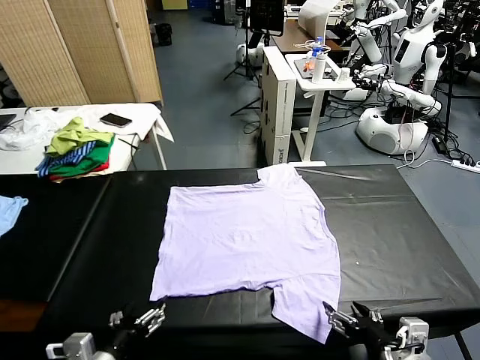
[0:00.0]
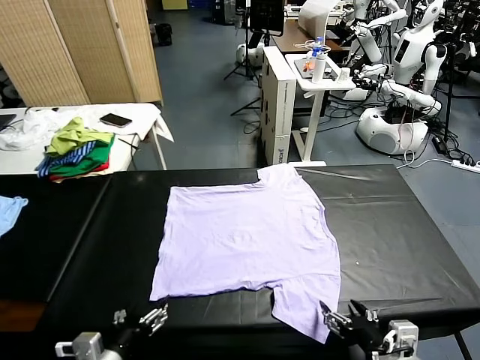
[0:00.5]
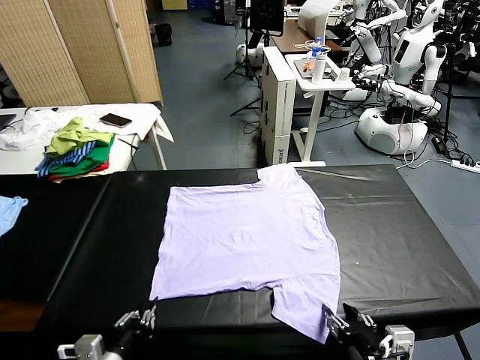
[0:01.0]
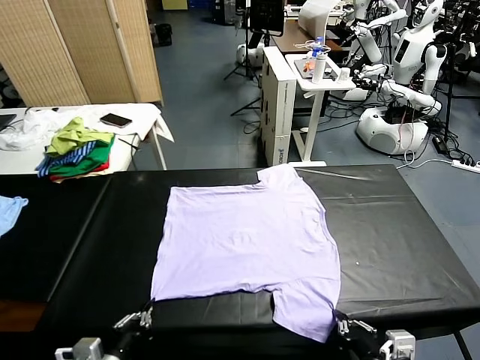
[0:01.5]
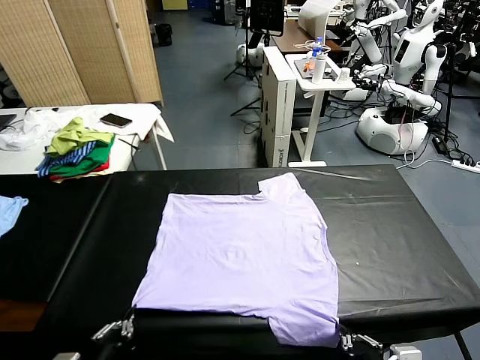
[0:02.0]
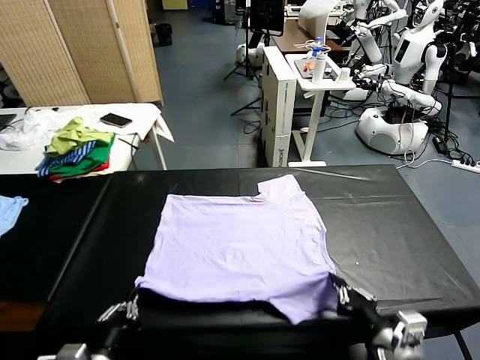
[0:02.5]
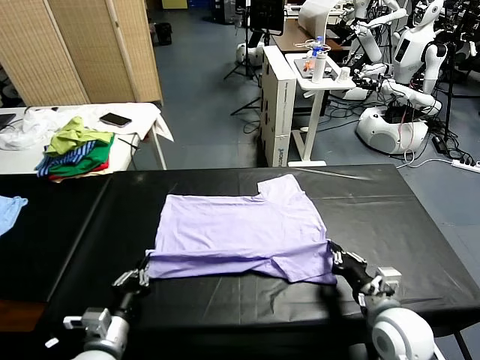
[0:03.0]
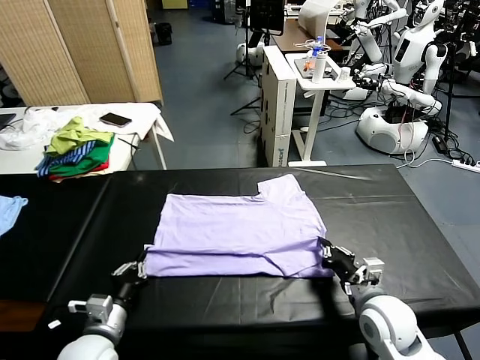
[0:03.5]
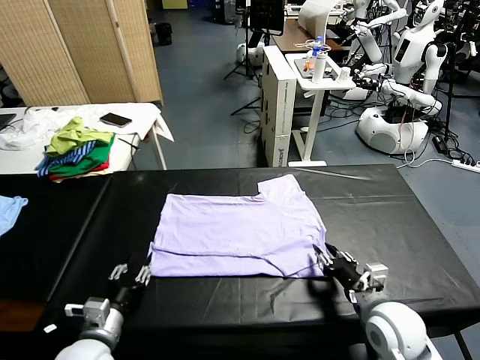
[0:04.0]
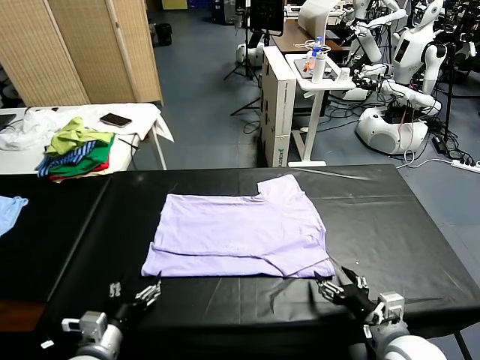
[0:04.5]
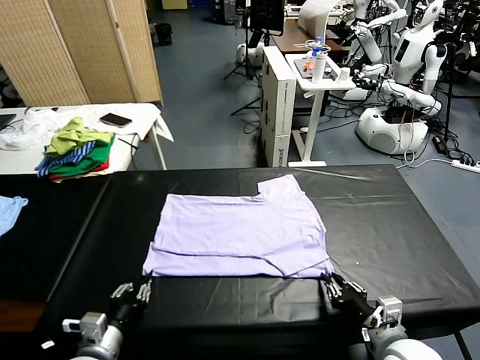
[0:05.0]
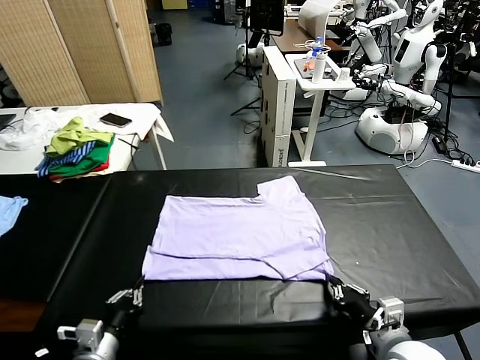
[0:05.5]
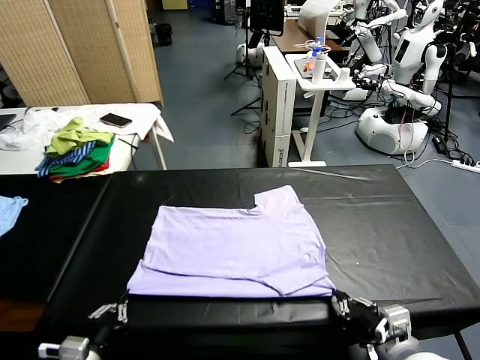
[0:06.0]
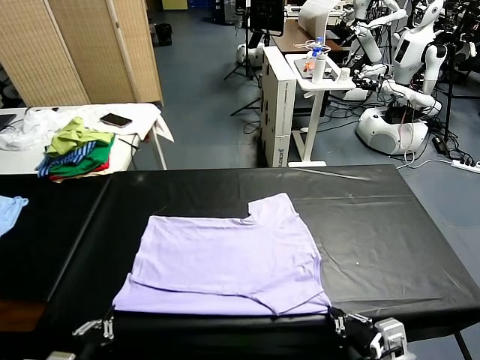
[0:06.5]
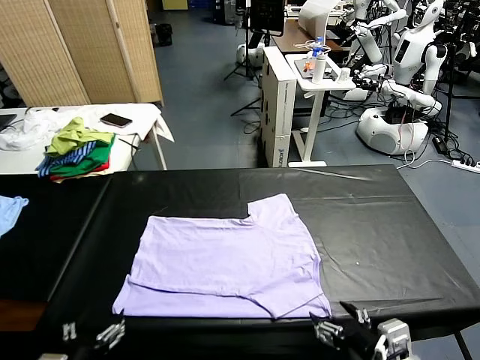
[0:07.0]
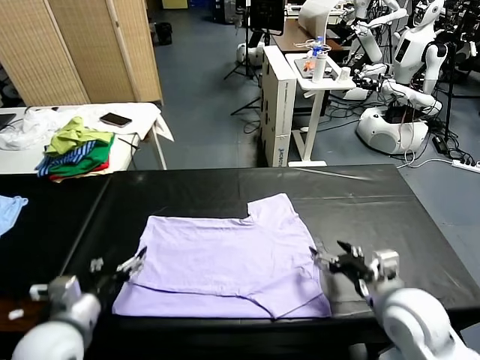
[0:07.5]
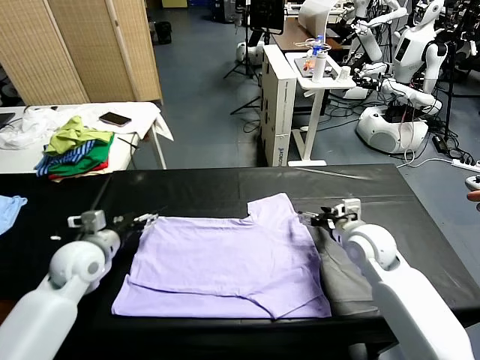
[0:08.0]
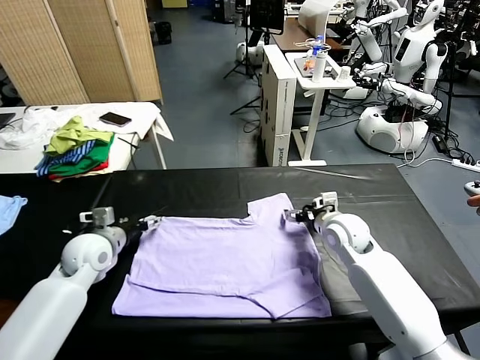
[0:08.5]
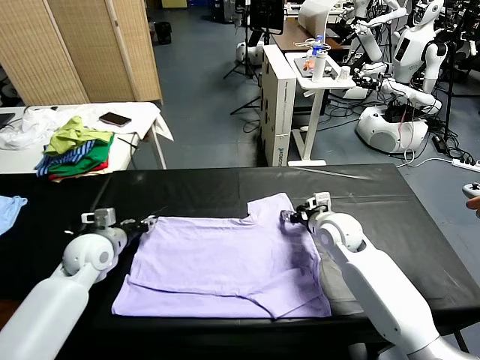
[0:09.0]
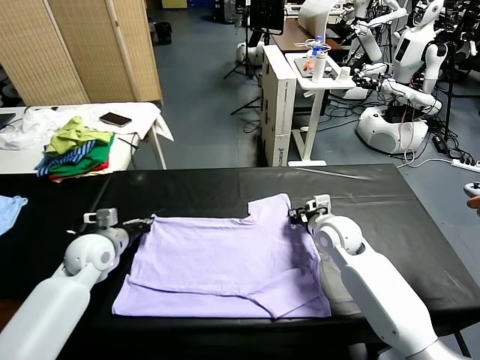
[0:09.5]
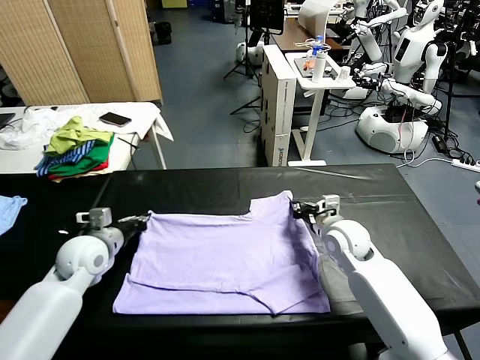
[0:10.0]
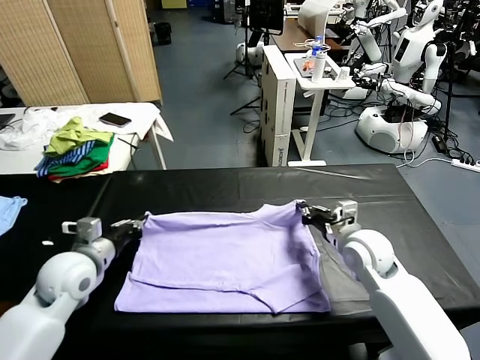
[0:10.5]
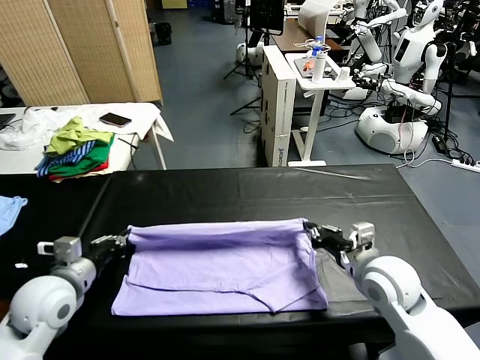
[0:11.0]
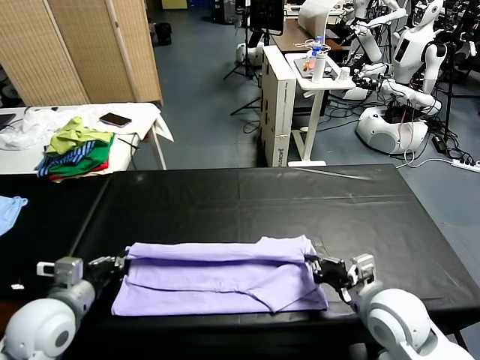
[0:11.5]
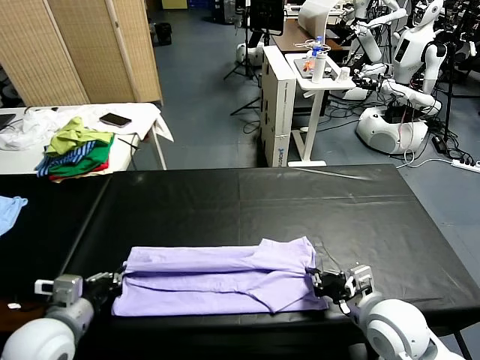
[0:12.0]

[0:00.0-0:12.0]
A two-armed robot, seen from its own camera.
Task of the whole recording: fold and organize the clothes.
Step, 0:00.0 to 0:01.5: use both grippers simultaneously to clamp the lower edge of the clothing fabric.
Step, 0:02.0 to 0:04.0: use both grippers to drag the lower edge of the fabric forward and fold it over the upper edge.
Step, 0:04.5 to 0:06.5: Drag the clothes downward with both gripper.
Step, 0:07.0 to 0:09.5: use both grippers simultaneously to clamp the upper edge of the clothing fabric.
0:02.0 to 0:04.0: The left gripper heads forward and downward, covering approximately 10 cm, and opens up. The right gripper moves forward, approximately 10 cm, and opens.
0:04.0 to 0:06.0: Both grippers move backward, approximately 5 cm. The right gripper closes its fingers; the left gripper closes up.
0:06.0 to 0:08.0: Both grippers move forward, about 30 cm. The right gripper opens. Meanwhile the left gripper opens its fingers.
0:08.0 to 0:10.0: The left gripper closes its fingers. The right gripper closes.
0:10.0 to 0:12.0: The grippers both shift backward by approximately 15 cm.

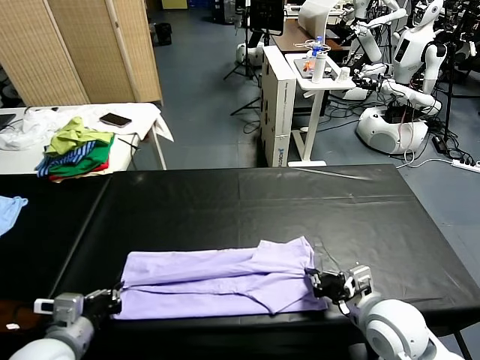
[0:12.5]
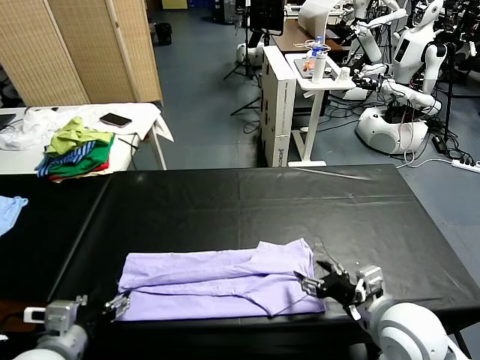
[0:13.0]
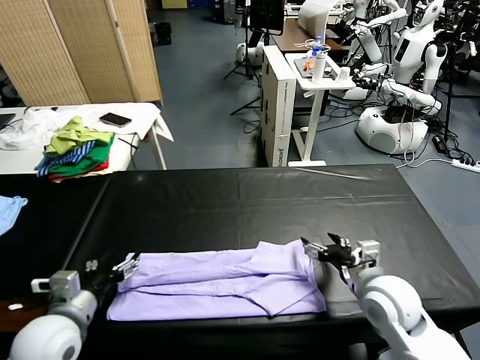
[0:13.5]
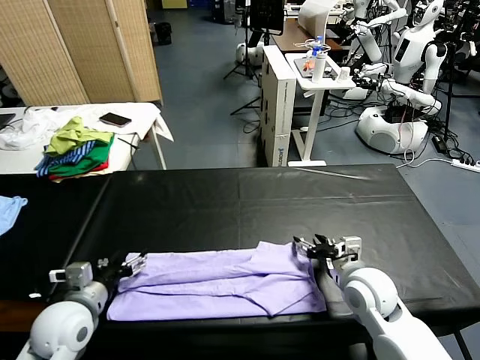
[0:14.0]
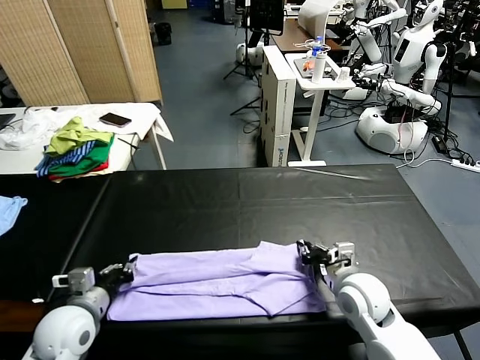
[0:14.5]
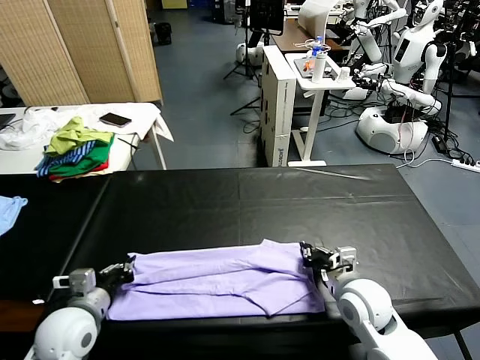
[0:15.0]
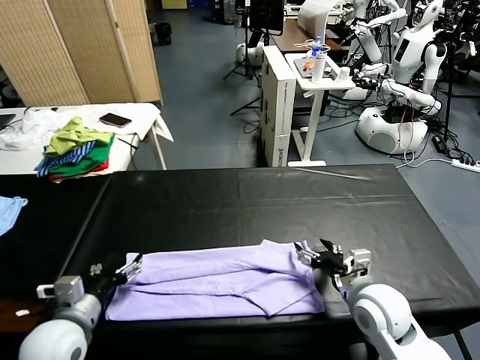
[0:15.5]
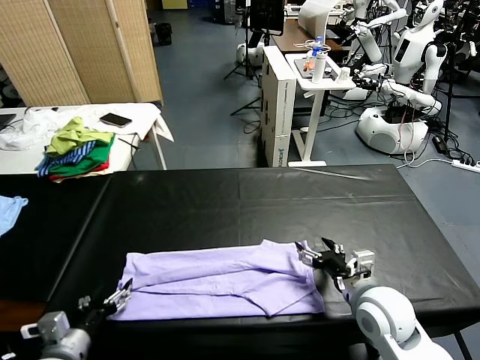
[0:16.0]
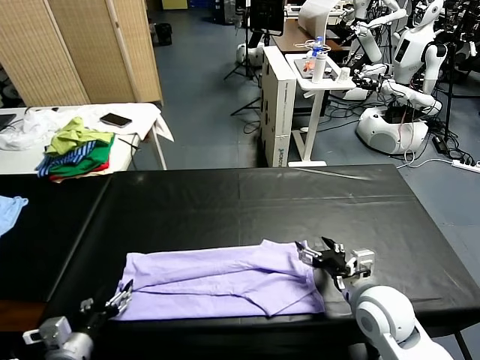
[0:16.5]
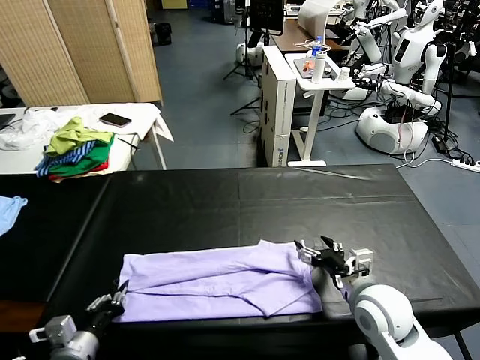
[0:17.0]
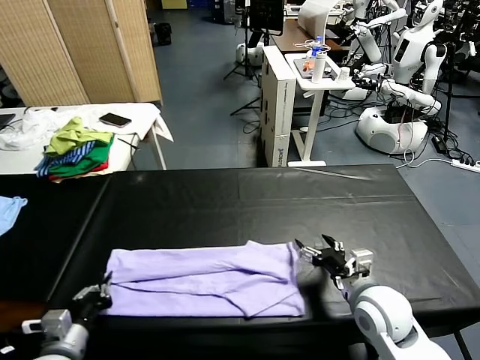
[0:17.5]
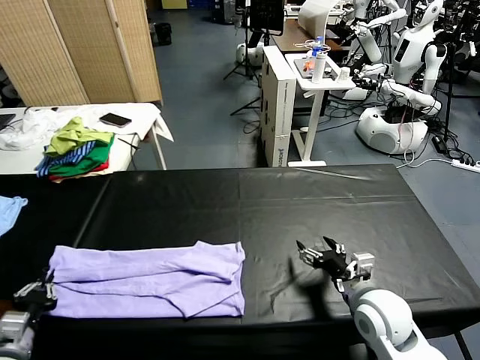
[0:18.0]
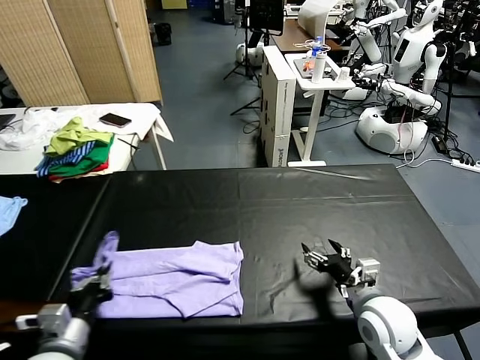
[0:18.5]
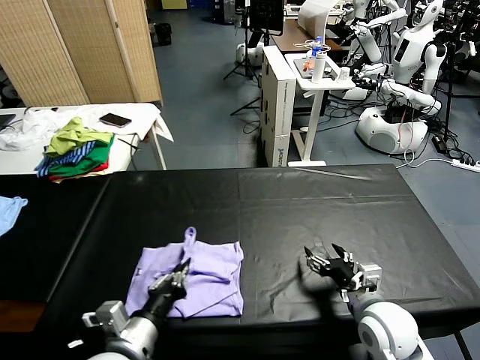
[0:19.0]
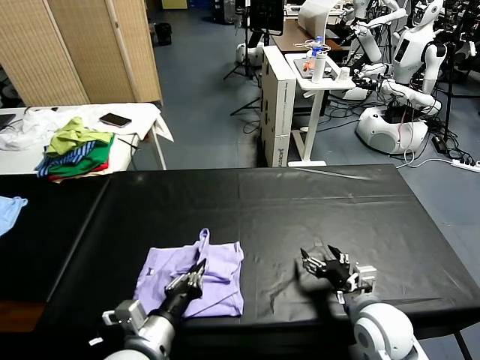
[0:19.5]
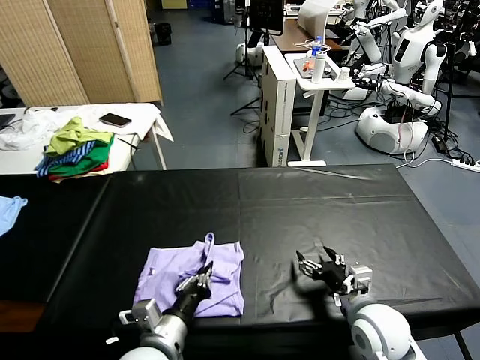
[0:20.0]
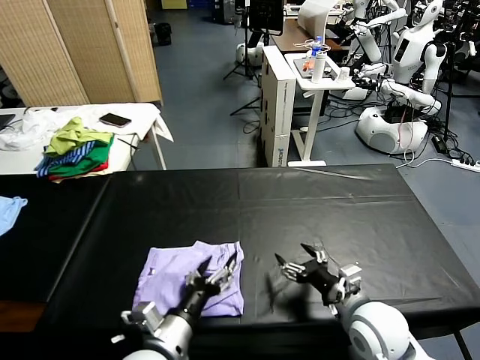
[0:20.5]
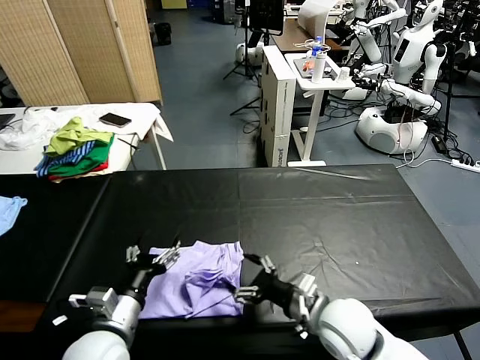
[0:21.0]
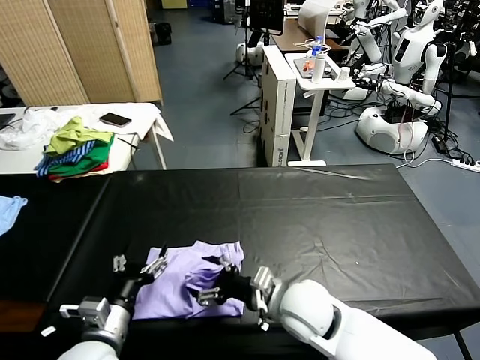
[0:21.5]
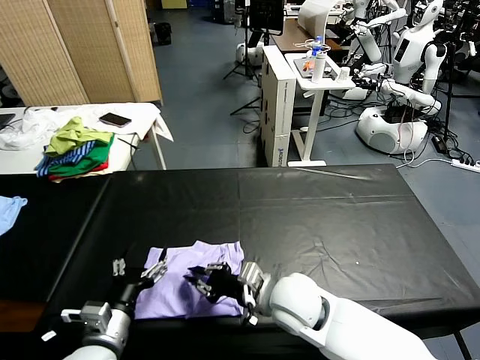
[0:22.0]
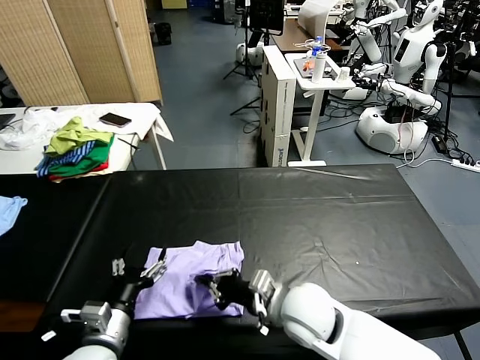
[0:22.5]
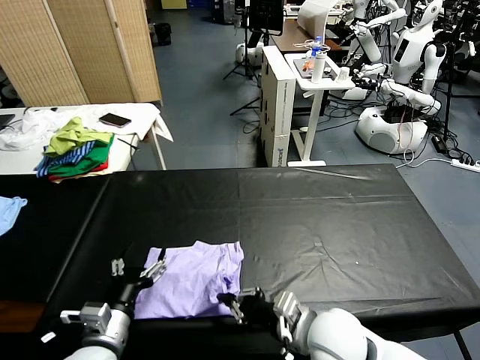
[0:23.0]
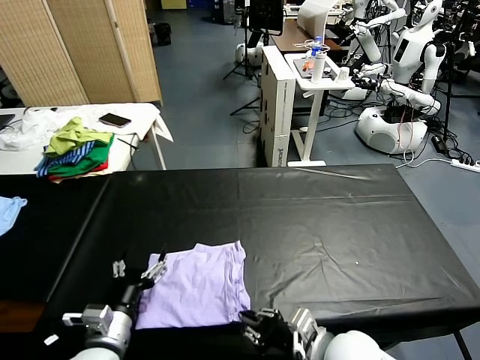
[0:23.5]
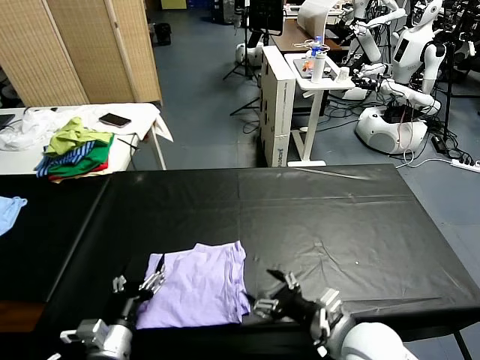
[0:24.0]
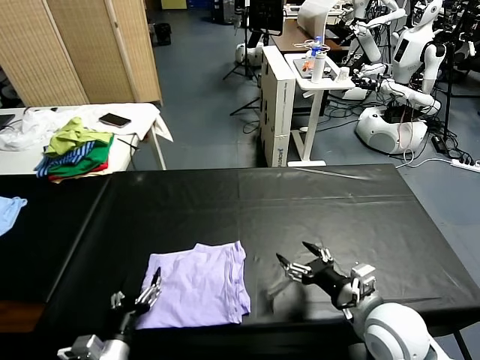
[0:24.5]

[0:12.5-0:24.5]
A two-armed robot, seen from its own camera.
Task of the whole recording: fold and organize the clothes.
Step, 0:13.5 to 0:17.0: use the left gripper to clamp the left edge of the fabric.
Step, 0:17.5 to 0:20.5: use the left gripper to drag the left edge of the fabric to the left and folds it over the right edge.
0:12.5 to 0:14.5: The two grippers go about 5 cm forward. The left gripper opens, then closes again. The right gripper opens, then closes once more.
0:14.5 to 0:16.5: The left gripper moves backward, some 10 cm, and opens up. The right gripper opens its fingers.
0:16.5 to 0:18.5: The left gripper goes to the left and returns, roughly 10 cm each way, and closes up.
0:18.5 to 0:20.5: The left gripper moves to the right, about 15 cm, and opens its fingers.
0:20.5 to 0:22.5: Both grippers travel together to the left, roughly 10 cm. The right gripper closes its fingers.
0:22.5 to 0:24.5: The right gripper is displaced to the right by roughly 15 cm, and opens, while the left gripper travels downward by some 5 cm.

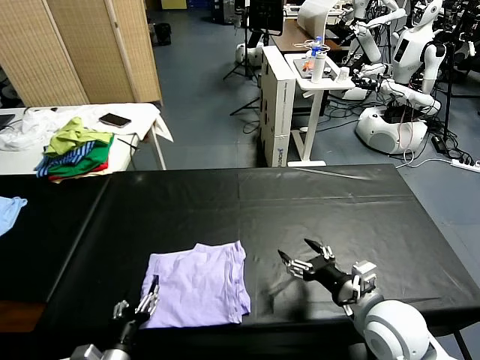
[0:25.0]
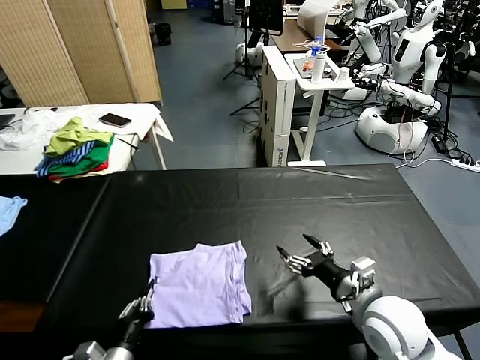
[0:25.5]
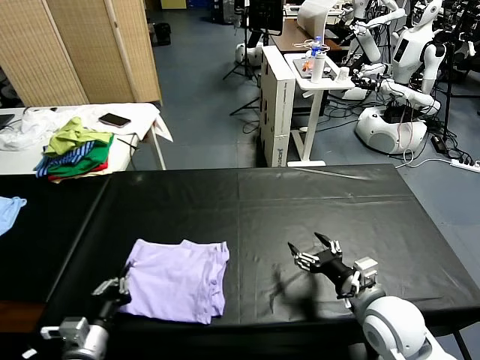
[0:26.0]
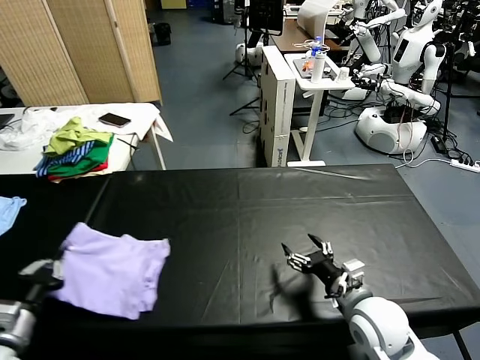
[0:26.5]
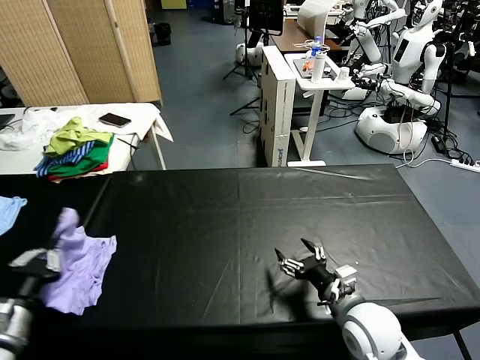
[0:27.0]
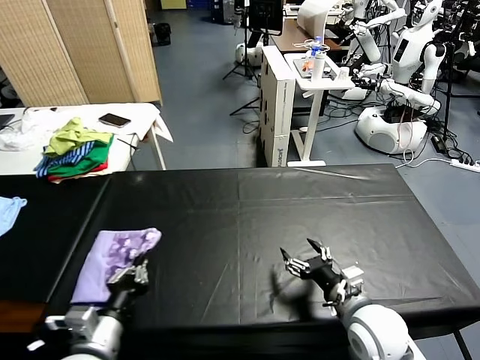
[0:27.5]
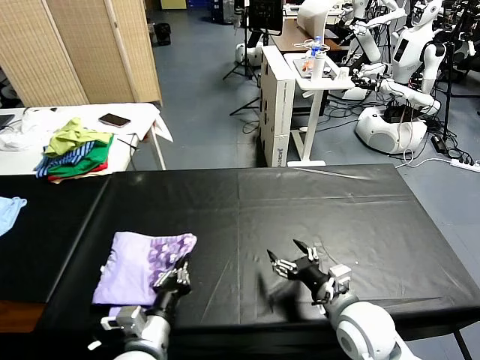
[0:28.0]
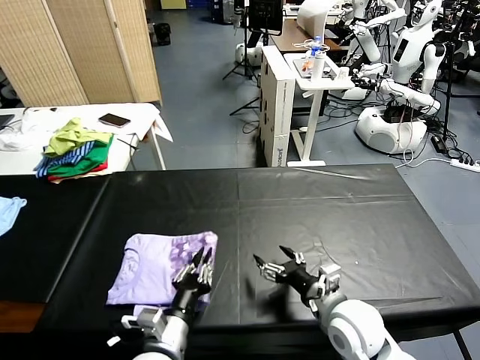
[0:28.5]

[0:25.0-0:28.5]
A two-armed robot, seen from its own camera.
Task of the whole recording: fold and organize the clothes.
0:25.0 to 0:27.0: The right gripper ends up roughly 5 cm from where it was. Meanwhile the left gripper heads upward and to the left, covering approximately 20 cm, and closes its fingers.
0:27.0 to 0:28.5: The left gripper heads to the right, covering roughly 25 cm.
